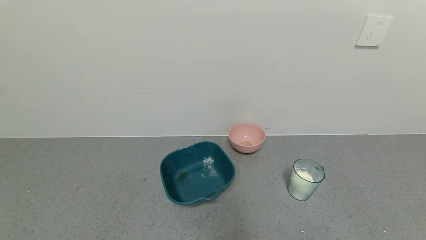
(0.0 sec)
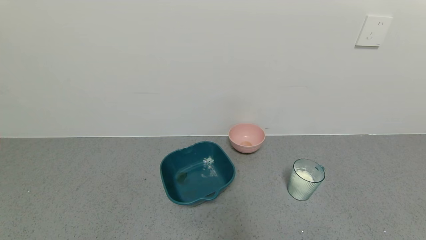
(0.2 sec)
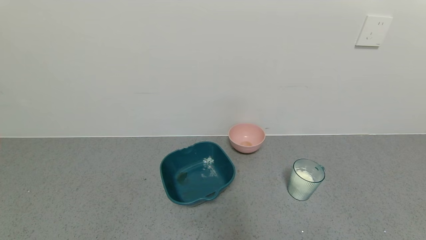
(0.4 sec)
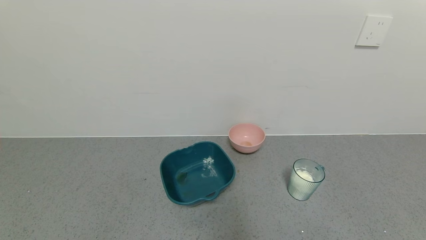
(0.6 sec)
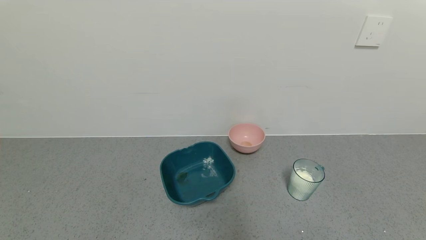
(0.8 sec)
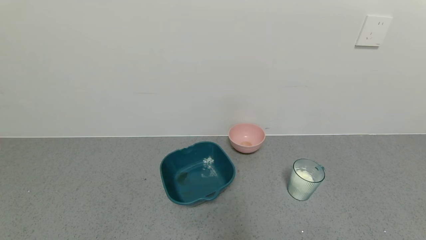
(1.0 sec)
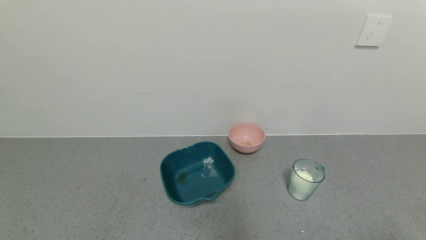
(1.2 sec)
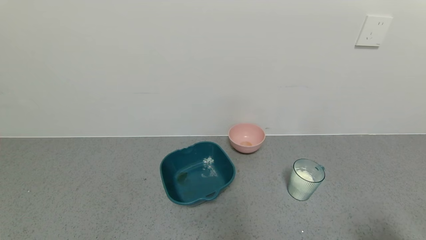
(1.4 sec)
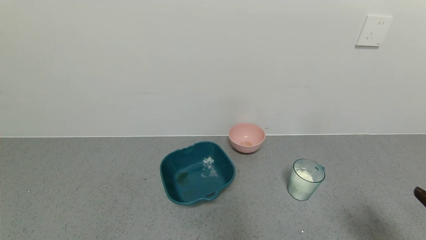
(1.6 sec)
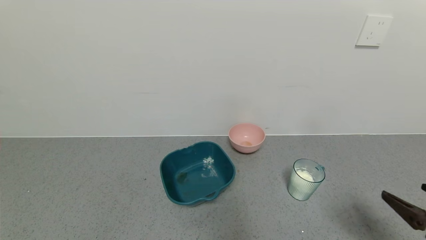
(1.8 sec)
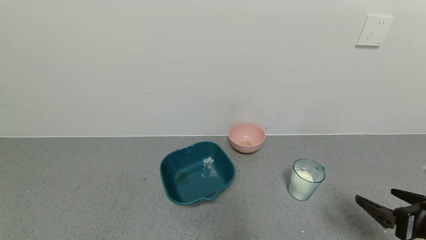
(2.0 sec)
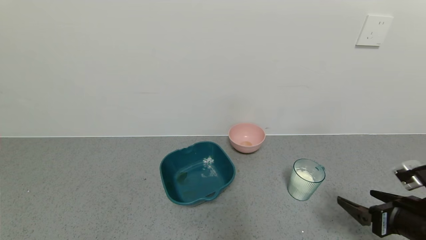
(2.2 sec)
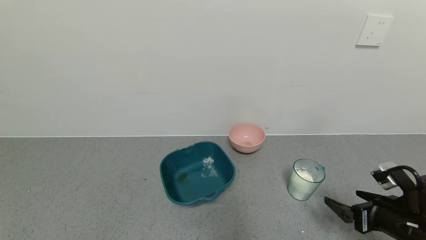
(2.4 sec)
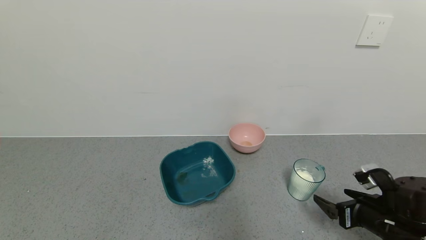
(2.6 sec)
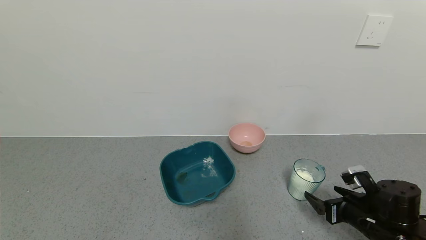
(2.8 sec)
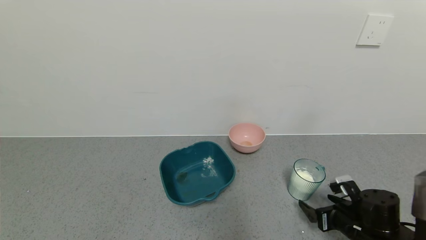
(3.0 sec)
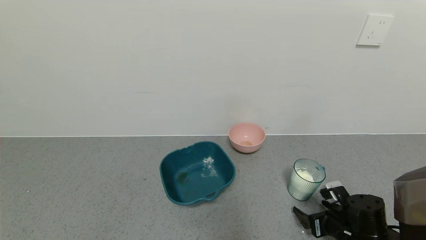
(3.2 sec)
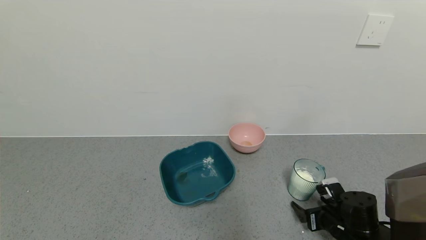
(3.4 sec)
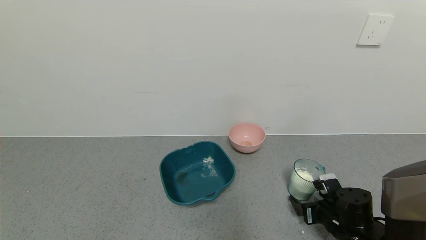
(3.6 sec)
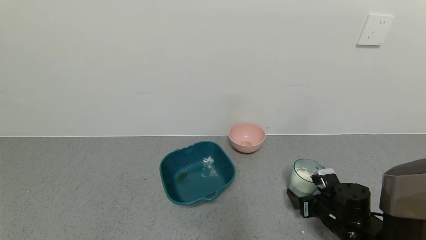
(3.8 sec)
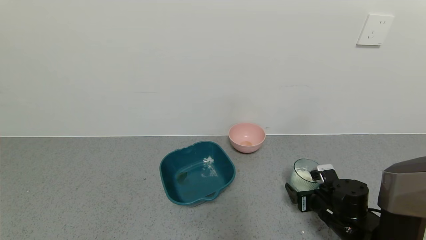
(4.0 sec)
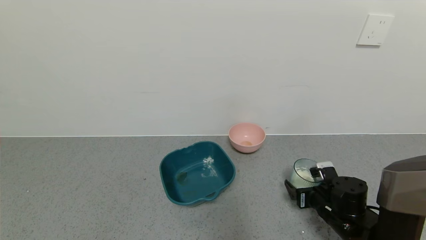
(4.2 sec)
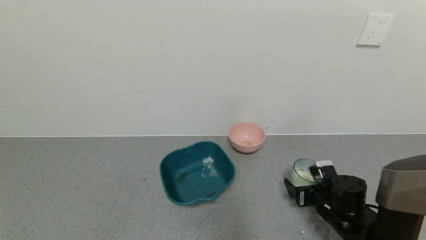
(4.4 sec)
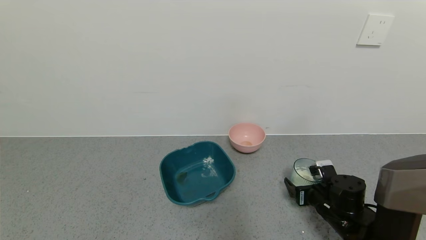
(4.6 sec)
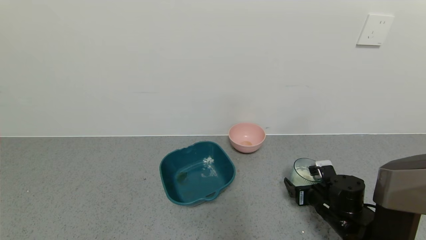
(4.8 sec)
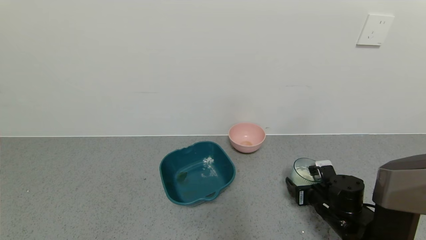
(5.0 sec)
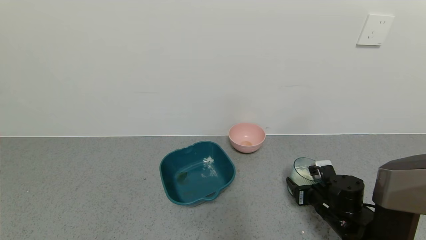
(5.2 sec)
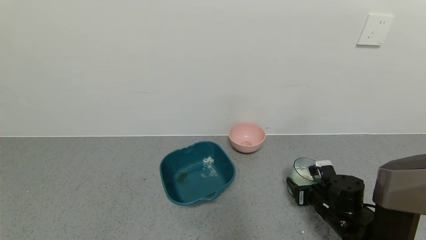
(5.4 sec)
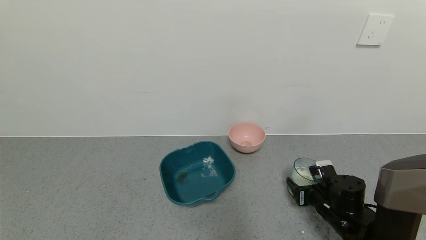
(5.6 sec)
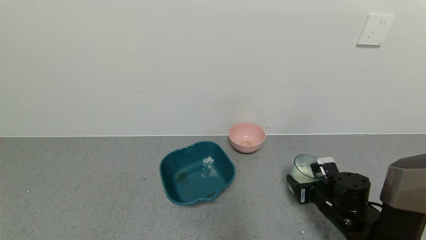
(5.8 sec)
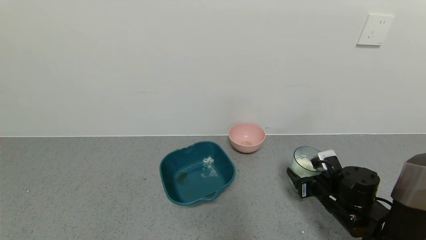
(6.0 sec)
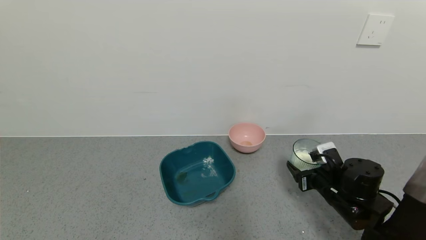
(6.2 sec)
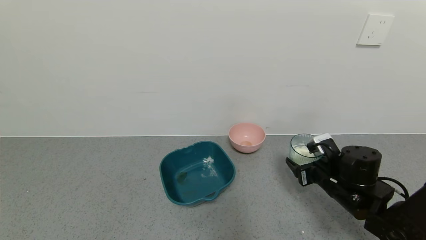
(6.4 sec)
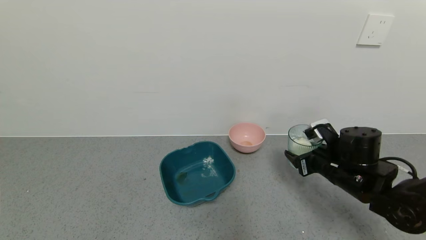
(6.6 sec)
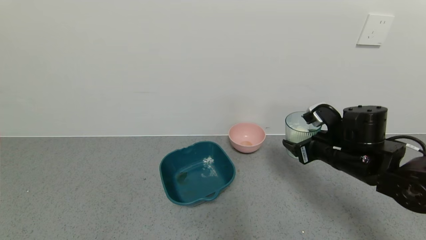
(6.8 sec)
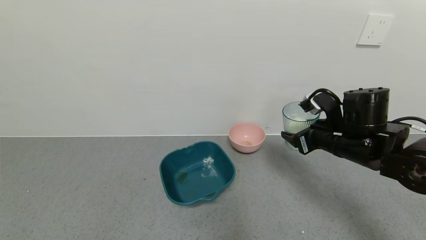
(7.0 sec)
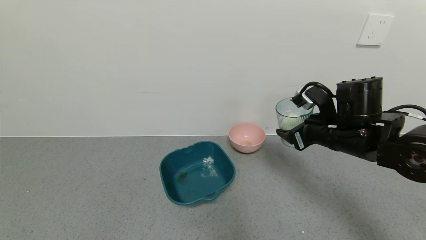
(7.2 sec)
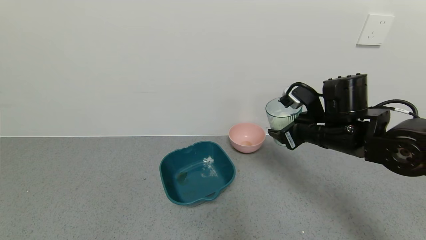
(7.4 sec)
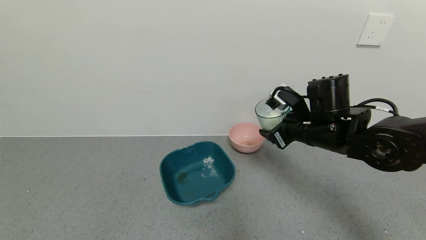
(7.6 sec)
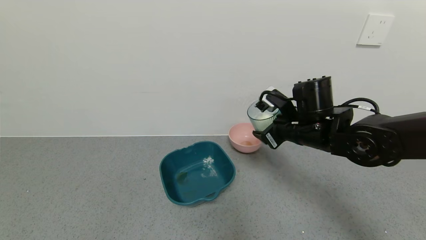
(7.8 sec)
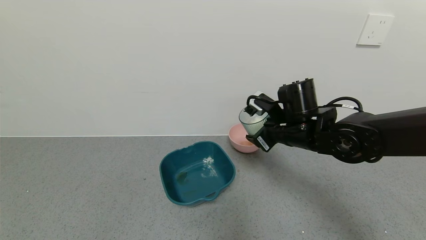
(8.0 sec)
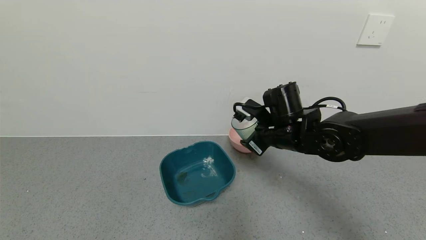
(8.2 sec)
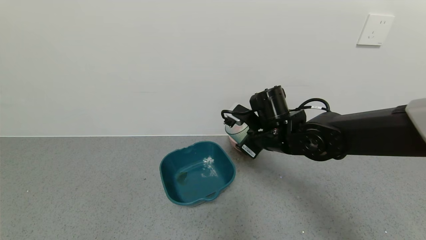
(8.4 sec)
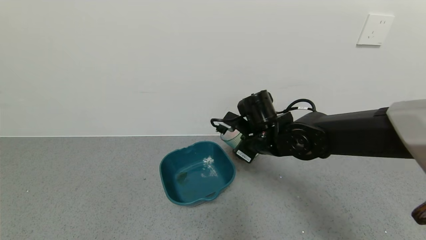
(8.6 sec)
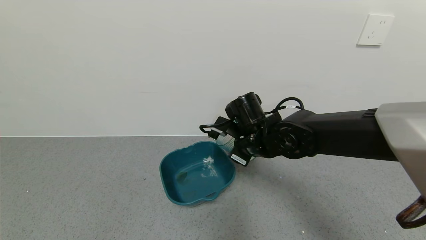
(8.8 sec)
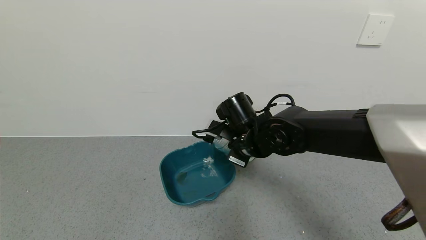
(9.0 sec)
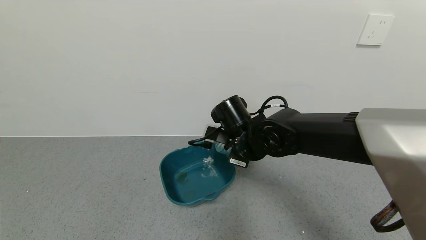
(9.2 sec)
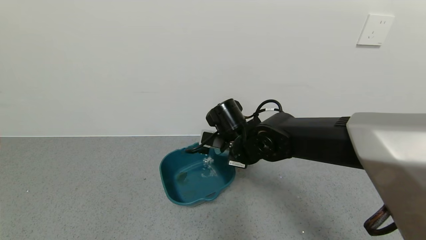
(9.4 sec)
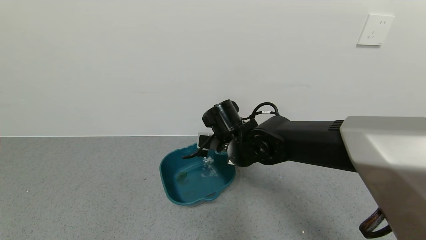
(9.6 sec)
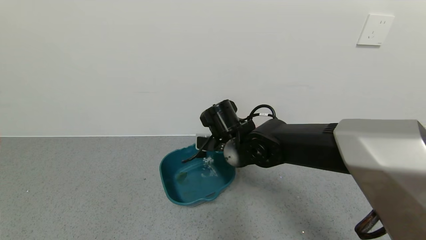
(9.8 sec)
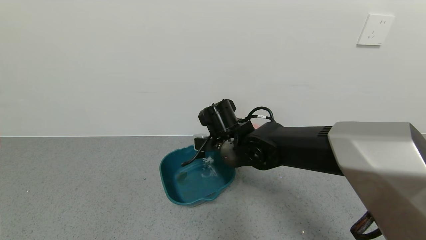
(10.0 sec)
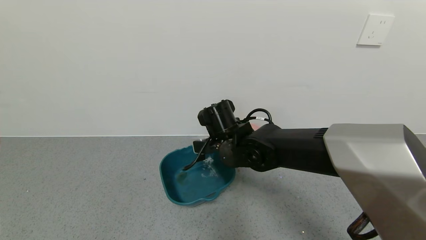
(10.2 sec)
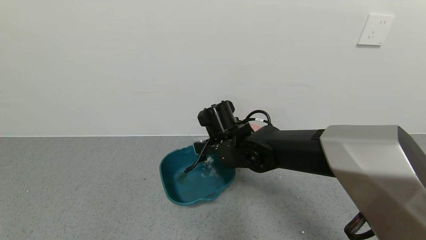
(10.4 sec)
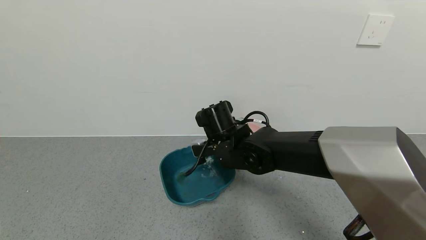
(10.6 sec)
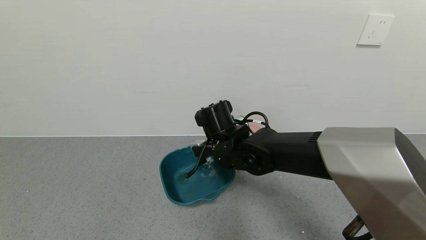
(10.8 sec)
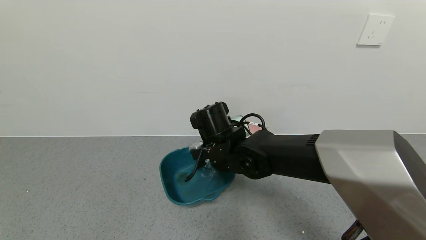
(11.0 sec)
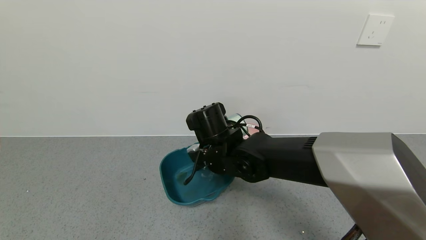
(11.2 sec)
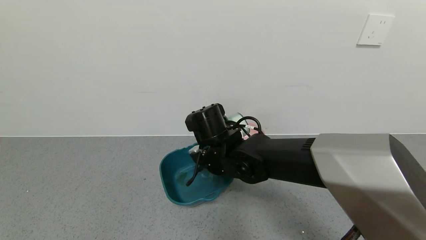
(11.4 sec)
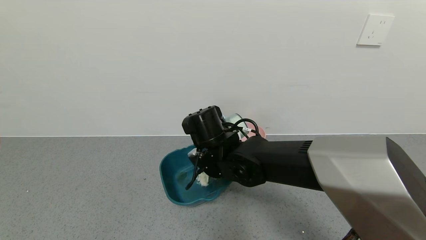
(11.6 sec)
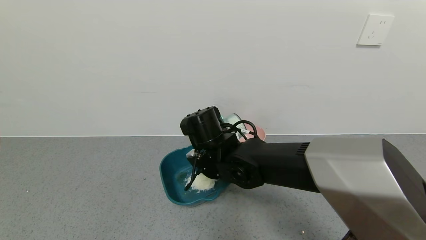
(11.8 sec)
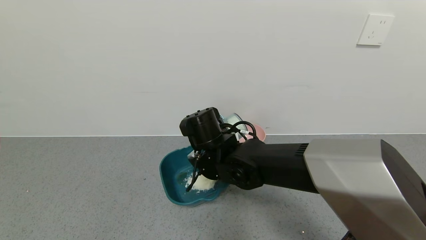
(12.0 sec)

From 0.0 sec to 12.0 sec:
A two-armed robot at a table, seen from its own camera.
Task of the whole recording: use a gripper to pick up the cup and pour the powder into a bowl or tray.
Step, from 0.0 sec to 5.2 sec: Grasp the glass of powder with the right gripper.
From 0.0 sec to 1.6 sec: The right gripper travels upward and forward by about 15 cm.
From 1.6 sec to 3.0 sec: The right gripper shifts roughly 25 cm downward, forward and to the left.
From 3.0 sec to 4.4 sec: The right gripper moves about 5 cm.
From 4.4 sec to 6.0 sec: The right gripper closes up.
From 6.0 sec to 7.6 sec: The right gripper is displaced upward and to the left by about 20 cm.
From 7.6 sec to 9.0 sec: The right gripper shifts approximately 10 cm to the left.

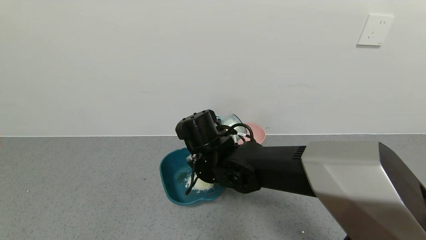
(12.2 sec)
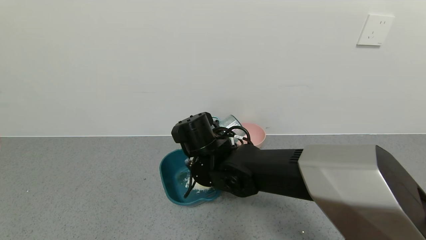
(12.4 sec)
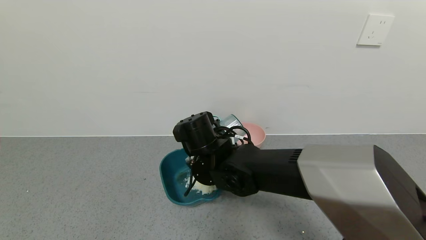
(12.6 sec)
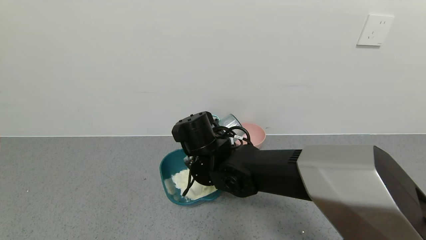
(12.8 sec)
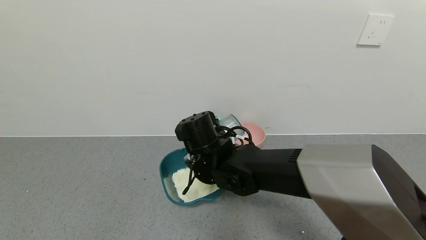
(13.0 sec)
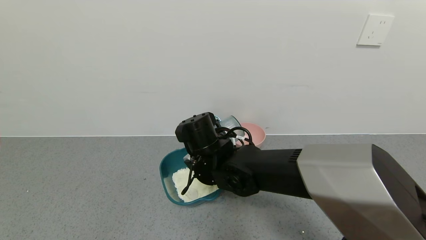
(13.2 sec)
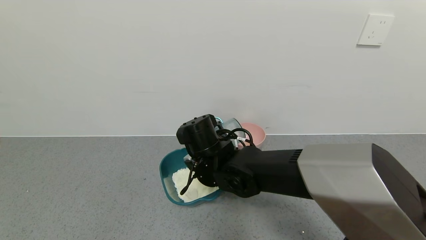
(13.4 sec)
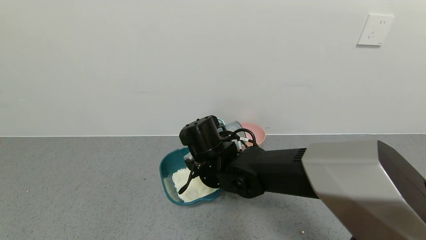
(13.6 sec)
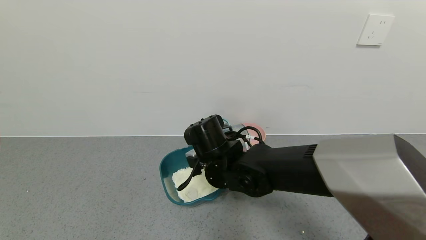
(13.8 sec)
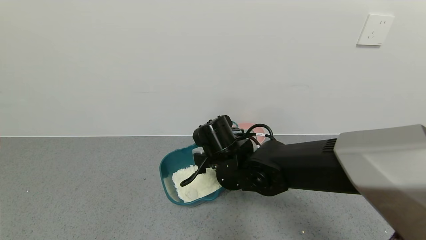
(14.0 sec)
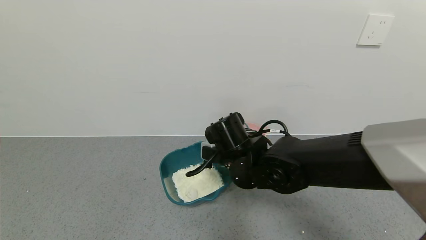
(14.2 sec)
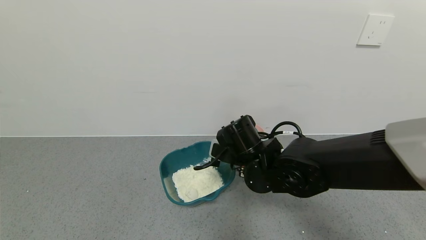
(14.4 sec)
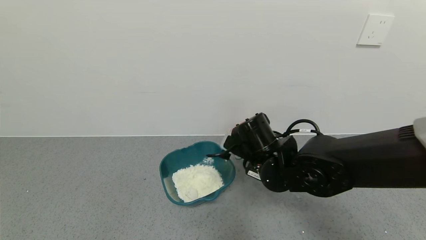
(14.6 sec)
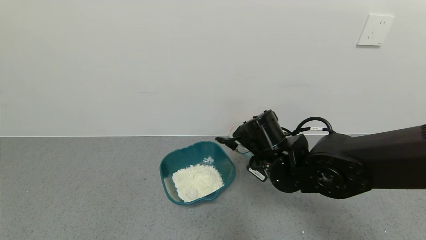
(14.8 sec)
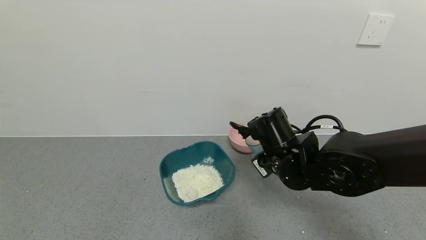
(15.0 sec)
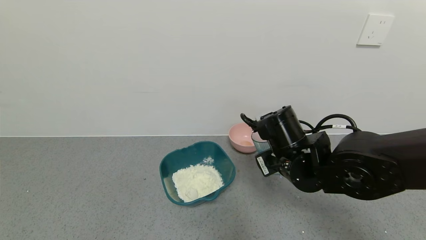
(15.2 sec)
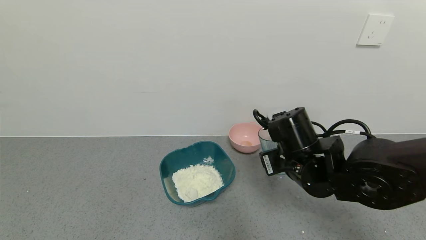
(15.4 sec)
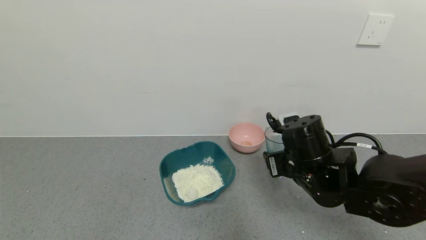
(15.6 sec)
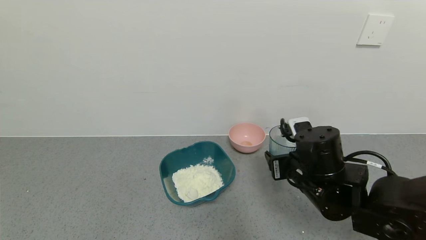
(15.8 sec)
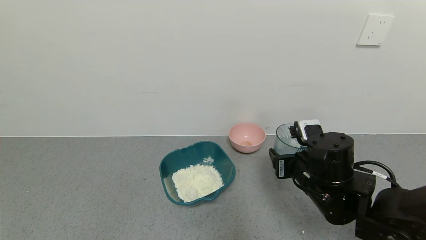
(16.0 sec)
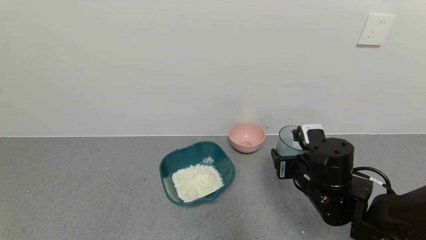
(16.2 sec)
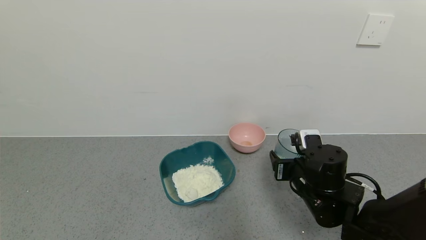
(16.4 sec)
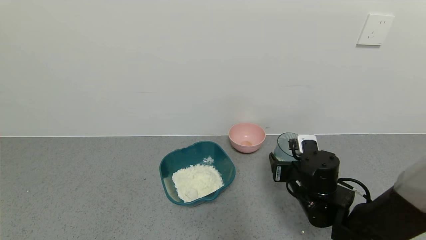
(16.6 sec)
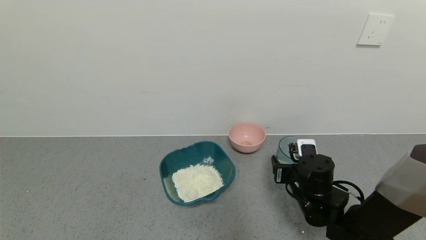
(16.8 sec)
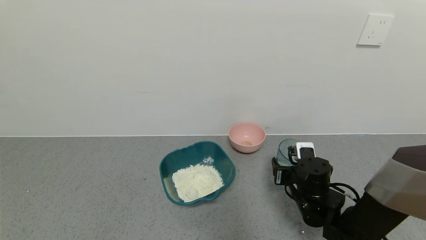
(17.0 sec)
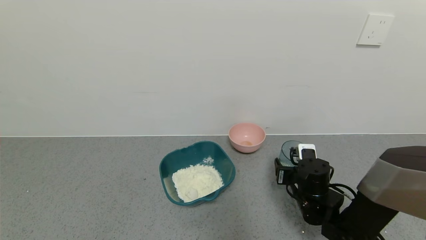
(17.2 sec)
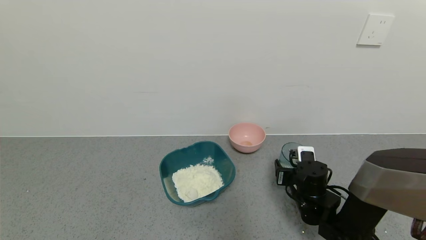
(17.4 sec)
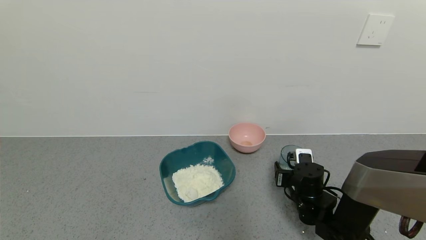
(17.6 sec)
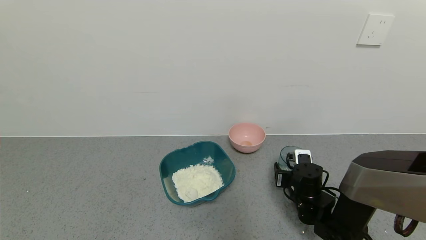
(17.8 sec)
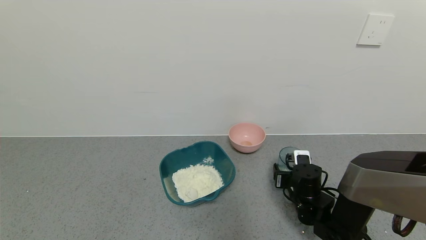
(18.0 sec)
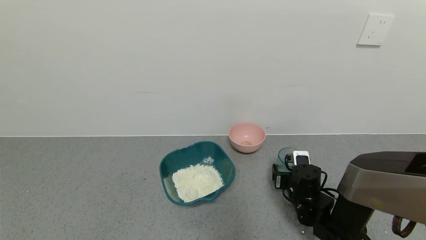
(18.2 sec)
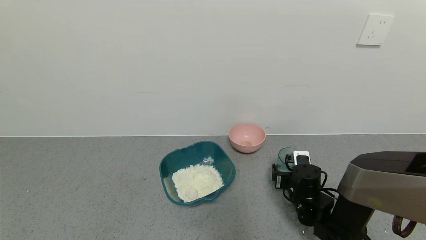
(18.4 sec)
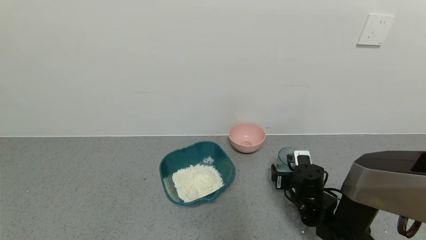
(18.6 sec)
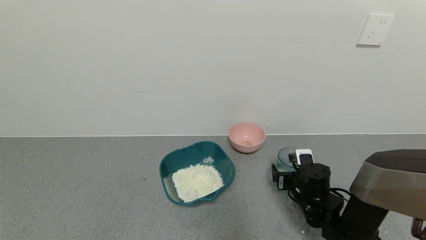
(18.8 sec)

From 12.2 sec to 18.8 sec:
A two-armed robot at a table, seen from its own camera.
Task of the whole recording: use a gripper to pick up the cup and pour the powder into a bowl or tray.
From 13.8 sec to 15.4 sec: The right gripper heads to the right, covering approximately 15 cm.
From 15.4 sec to 17.2 sec: The right gripper is displaced downward and to the right by about 15 cm.
From 17.2 sec to 18.8 sec: The right gripper opens.
